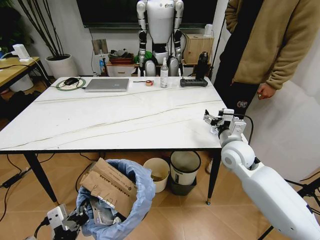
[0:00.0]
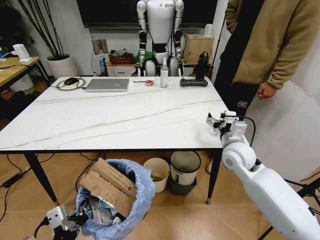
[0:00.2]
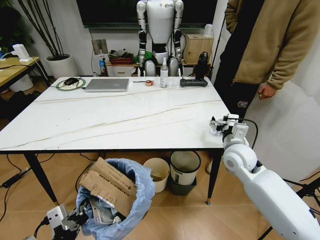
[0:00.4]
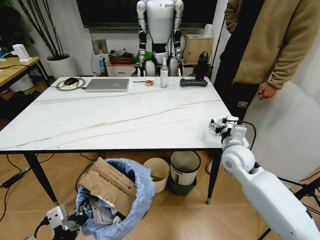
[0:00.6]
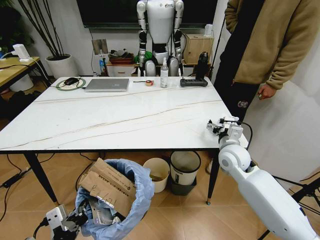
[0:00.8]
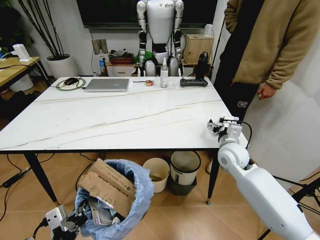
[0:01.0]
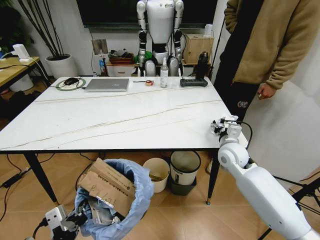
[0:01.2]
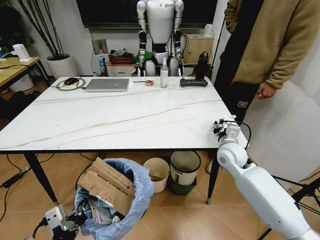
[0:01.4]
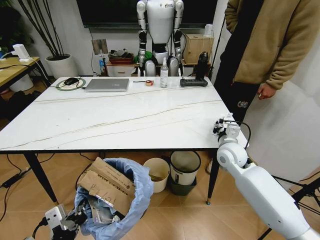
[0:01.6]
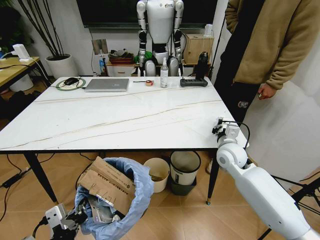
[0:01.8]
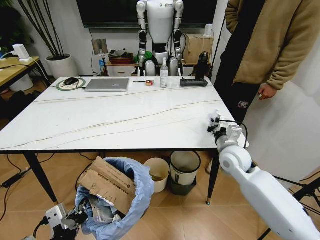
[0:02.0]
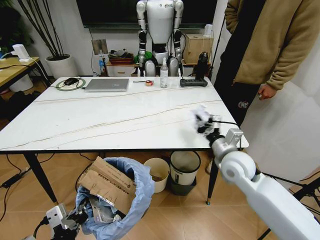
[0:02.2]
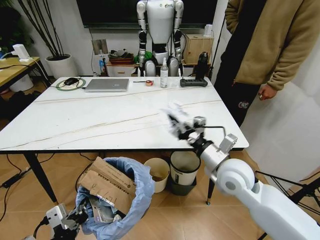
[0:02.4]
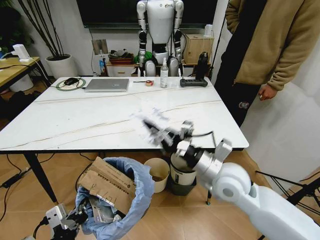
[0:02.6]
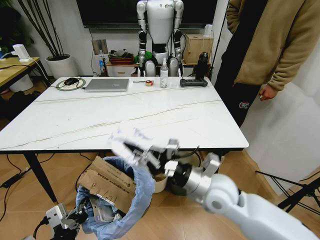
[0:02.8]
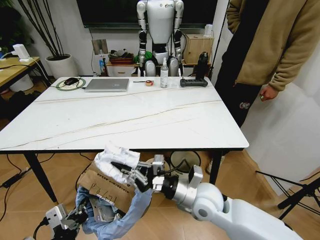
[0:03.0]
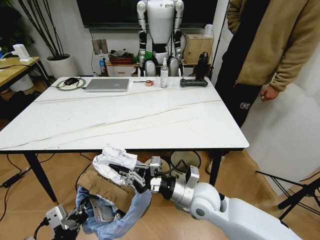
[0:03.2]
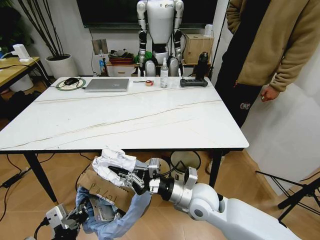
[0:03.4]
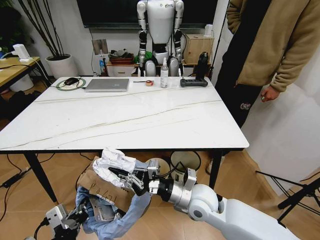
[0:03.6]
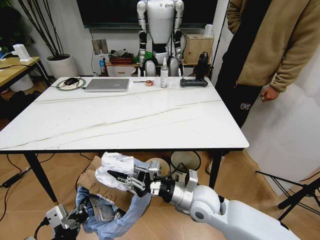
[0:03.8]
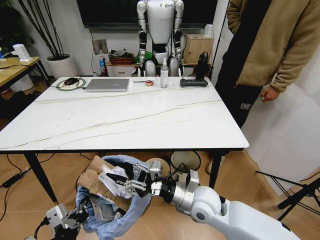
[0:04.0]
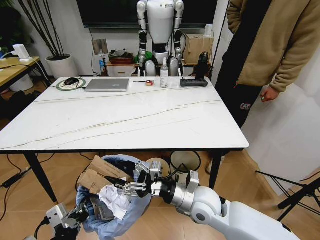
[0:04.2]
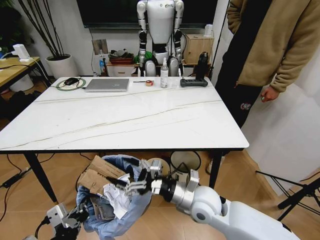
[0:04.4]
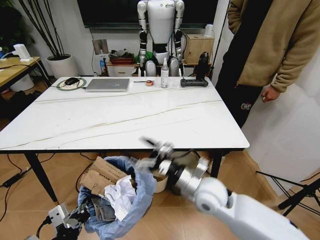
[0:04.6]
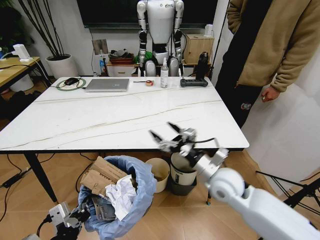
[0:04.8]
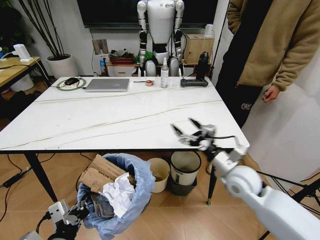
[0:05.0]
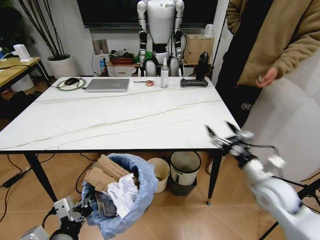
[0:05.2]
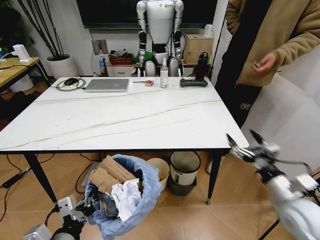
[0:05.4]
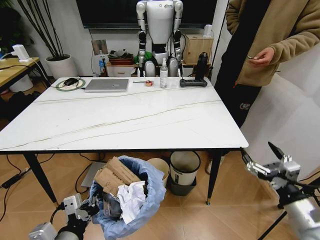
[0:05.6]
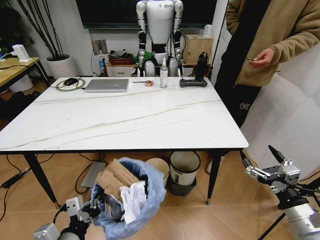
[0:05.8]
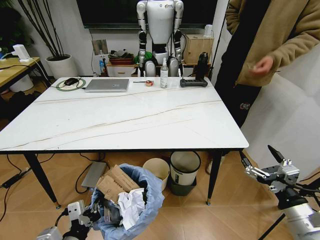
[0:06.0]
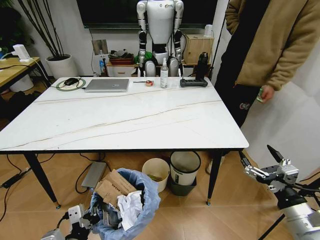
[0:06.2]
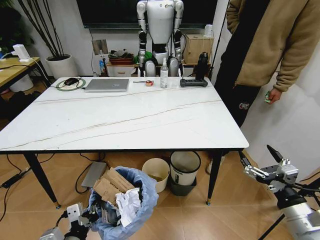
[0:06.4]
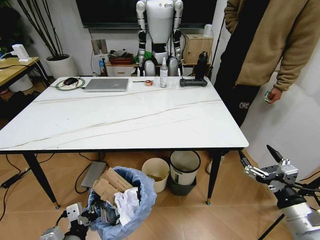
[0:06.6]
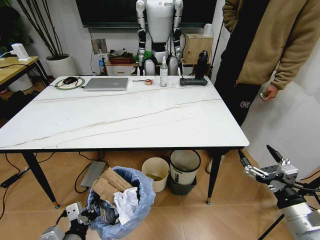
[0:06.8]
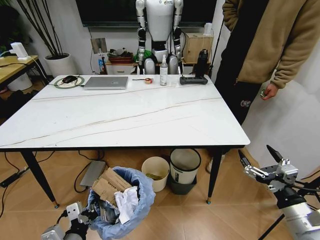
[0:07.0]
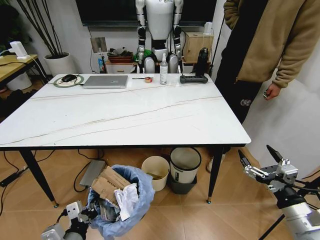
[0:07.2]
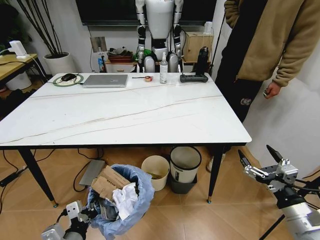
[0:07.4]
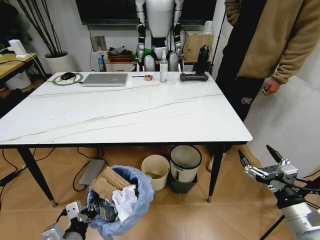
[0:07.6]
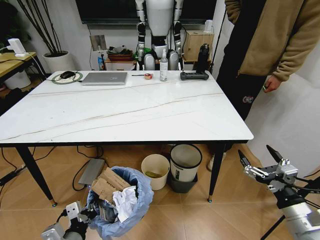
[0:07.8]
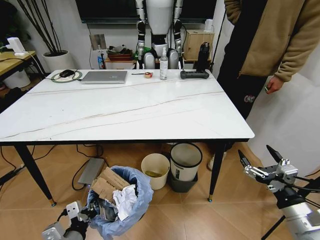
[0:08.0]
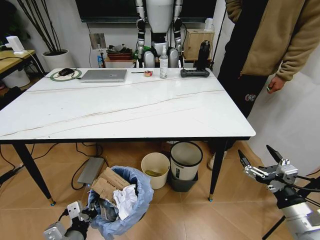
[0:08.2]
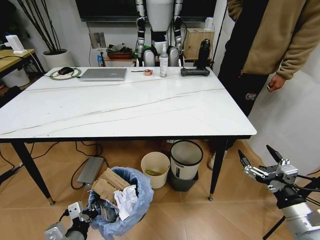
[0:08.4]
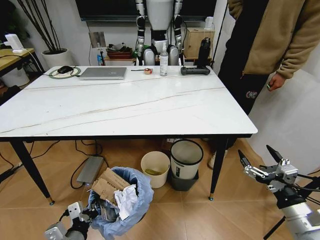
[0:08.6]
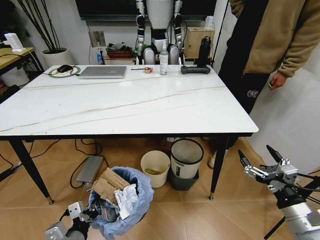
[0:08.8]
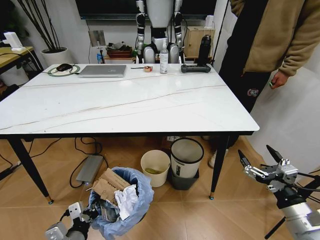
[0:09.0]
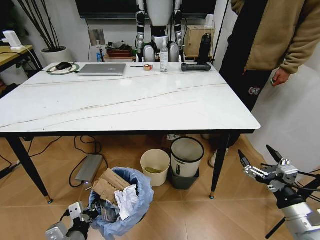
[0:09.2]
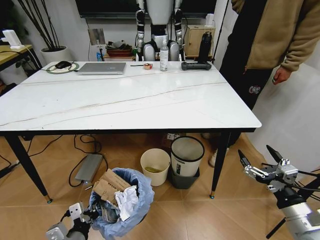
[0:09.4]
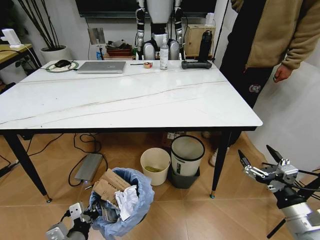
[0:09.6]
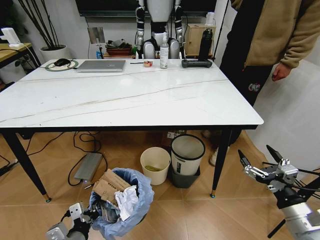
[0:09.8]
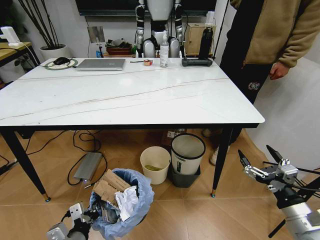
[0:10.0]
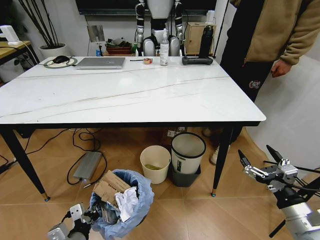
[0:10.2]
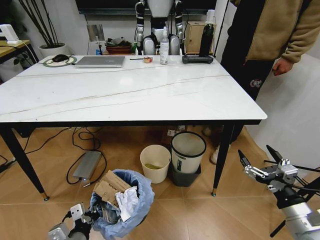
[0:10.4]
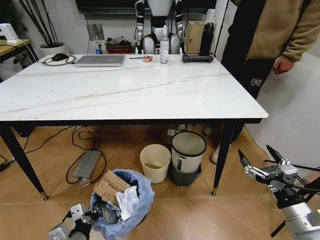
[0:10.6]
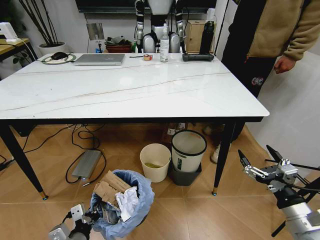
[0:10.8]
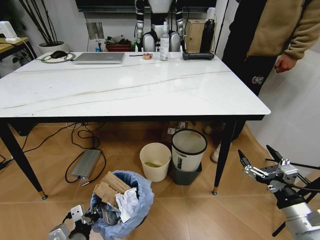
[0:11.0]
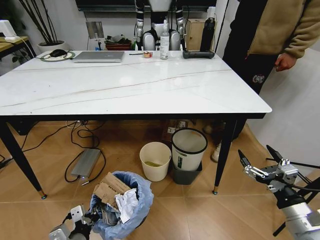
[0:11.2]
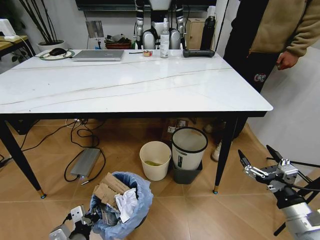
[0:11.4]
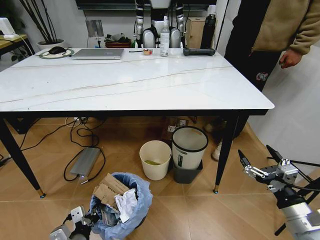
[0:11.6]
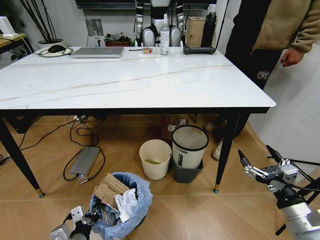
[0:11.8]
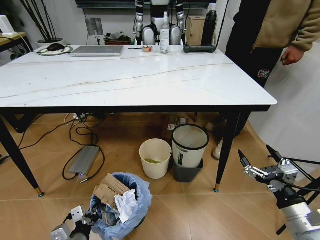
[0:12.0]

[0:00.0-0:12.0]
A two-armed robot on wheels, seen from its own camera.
Task of the whole recording: Pick up the trash bin and place the trash from the table into it.
0:00.0 to 0:01.6: The right gripper closes.
0:01.6 to 0:03.0: The right gripper heads backward and to the left, covering roughly 20 cm.
0:03.0 to 0:04.4: The right gripper opens its fingers.
0:04.4 to 0:06.0: The right gripper shifts some 30 cm to the right and backward; the left gripper goes roughly 5 cm downward.

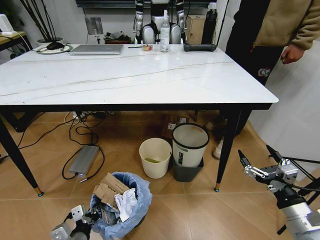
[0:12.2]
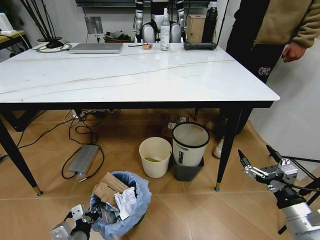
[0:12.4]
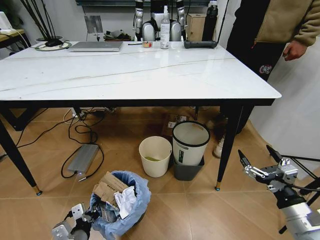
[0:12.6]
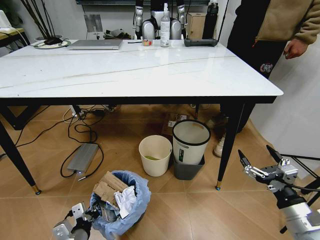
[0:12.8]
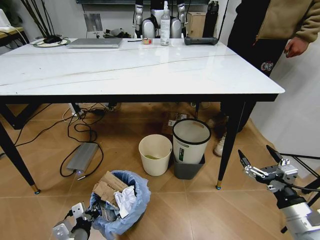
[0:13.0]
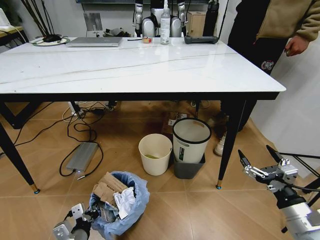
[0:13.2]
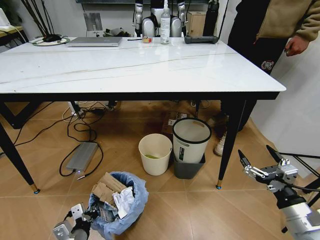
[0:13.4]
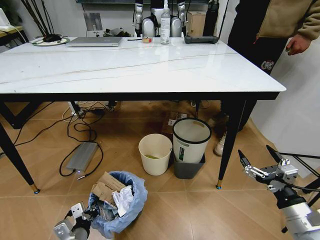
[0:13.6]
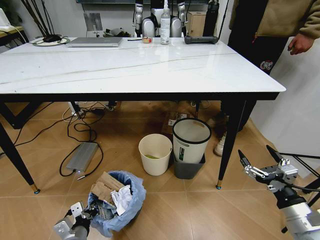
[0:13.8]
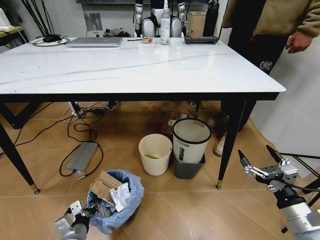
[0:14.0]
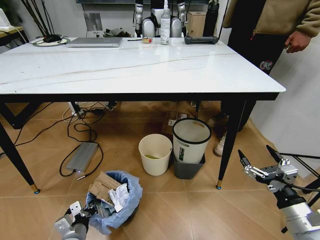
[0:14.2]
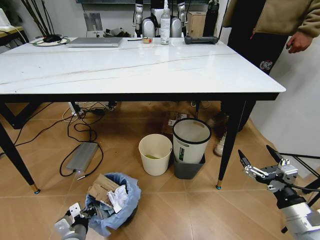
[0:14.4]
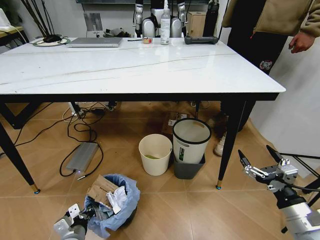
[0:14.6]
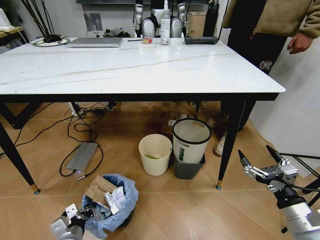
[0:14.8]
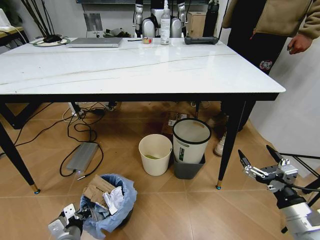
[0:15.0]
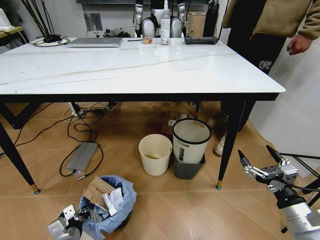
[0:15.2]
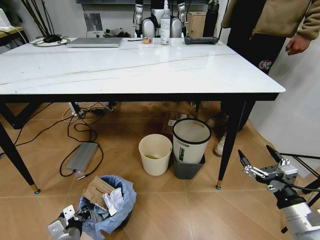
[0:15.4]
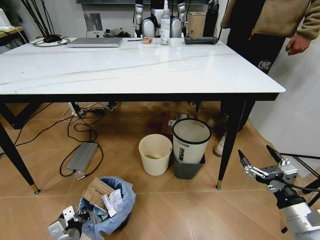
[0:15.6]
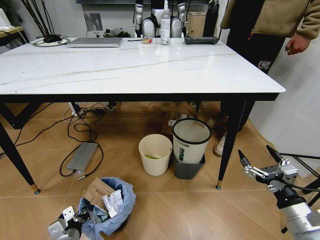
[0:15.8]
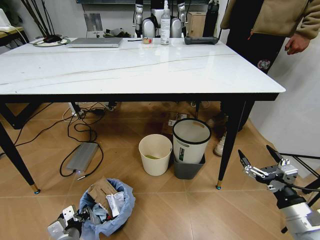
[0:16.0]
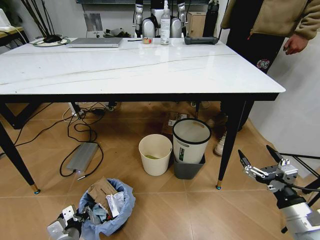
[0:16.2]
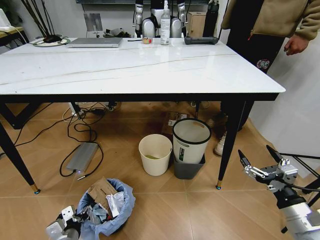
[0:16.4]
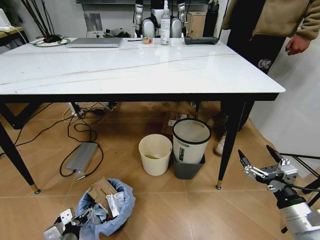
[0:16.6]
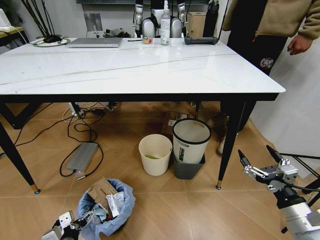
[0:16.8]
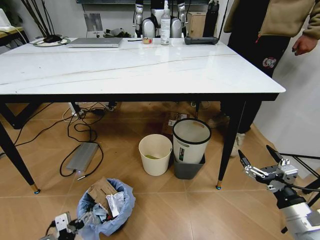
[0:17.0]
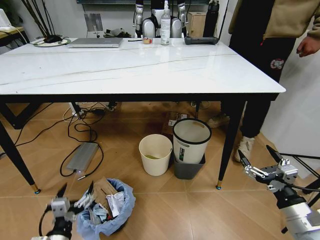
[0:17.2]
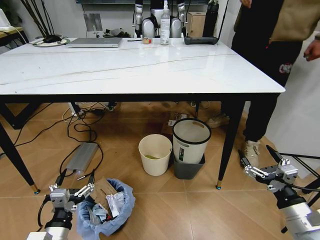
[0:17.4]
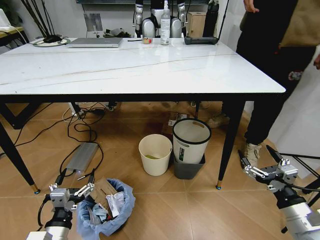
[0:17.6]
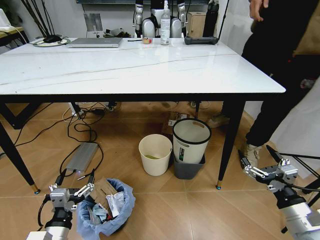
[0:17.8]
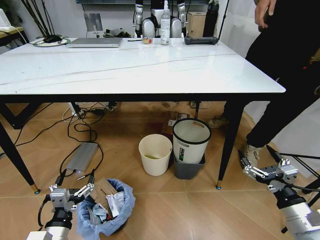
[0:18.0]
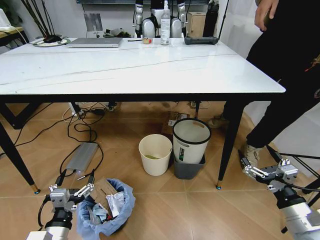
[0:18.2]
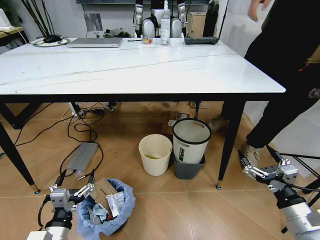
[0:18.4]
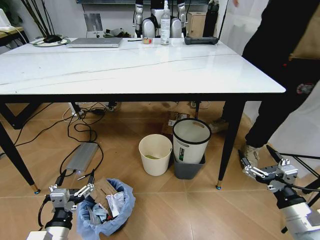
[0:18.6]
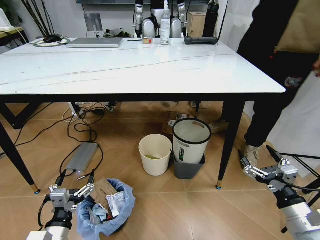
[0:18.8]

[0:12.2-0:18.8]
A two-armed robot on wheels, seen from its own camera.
Task of the whole recording: Pick up the trash bin and place the trash from the table into it.
0:13.8 to 0:15.4: The grippers make only small movements.
0:15.4 to 0:17.2: The left gripper goes approximately 10 cm upward and backward, and opens its fingers.
0:17.2 to 0:18.8: The grippers stay close to where they were, moving slightly.

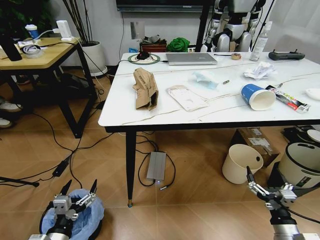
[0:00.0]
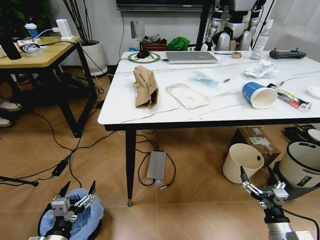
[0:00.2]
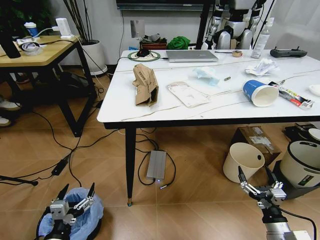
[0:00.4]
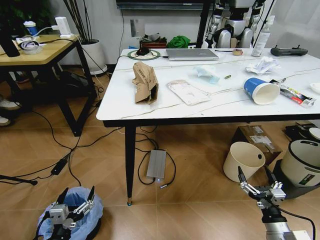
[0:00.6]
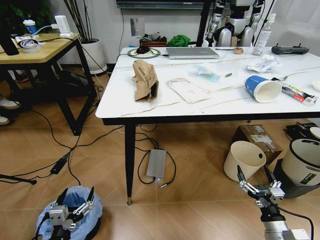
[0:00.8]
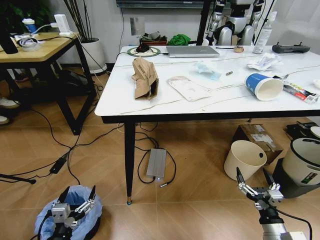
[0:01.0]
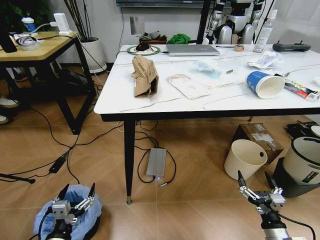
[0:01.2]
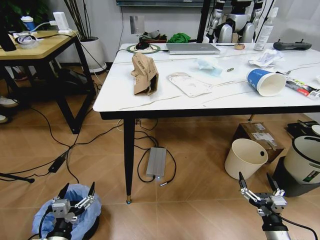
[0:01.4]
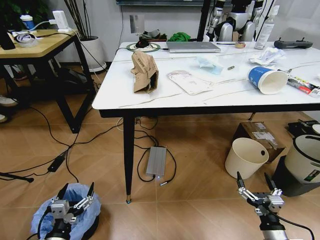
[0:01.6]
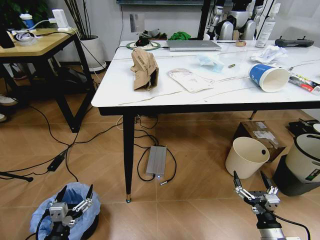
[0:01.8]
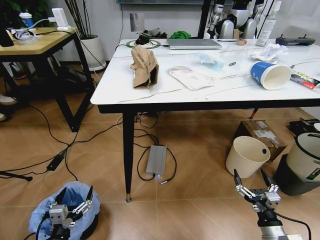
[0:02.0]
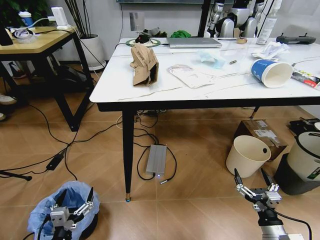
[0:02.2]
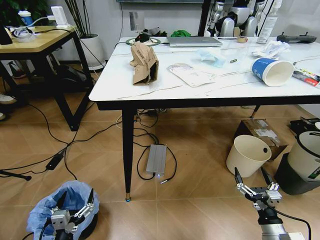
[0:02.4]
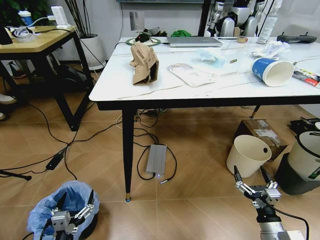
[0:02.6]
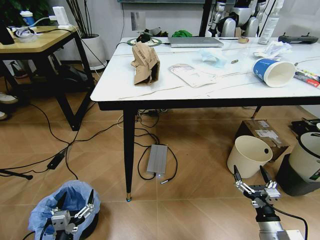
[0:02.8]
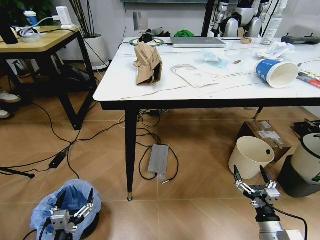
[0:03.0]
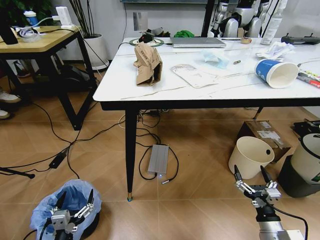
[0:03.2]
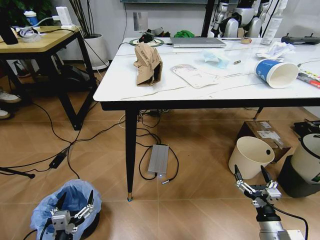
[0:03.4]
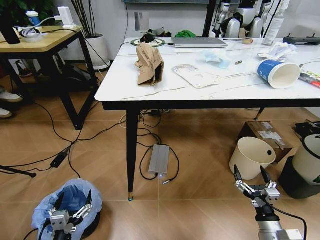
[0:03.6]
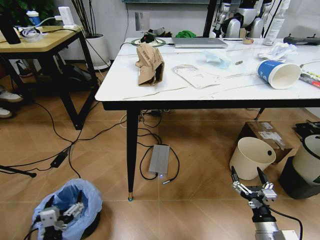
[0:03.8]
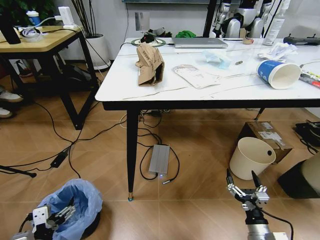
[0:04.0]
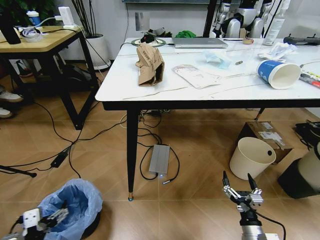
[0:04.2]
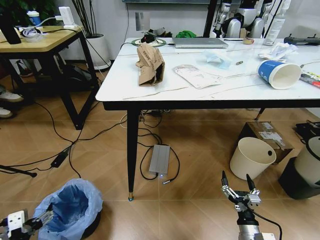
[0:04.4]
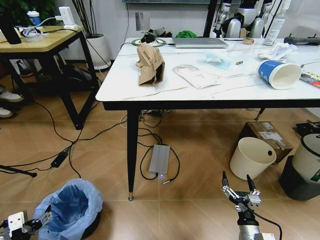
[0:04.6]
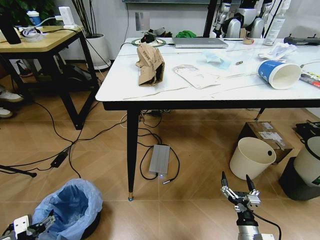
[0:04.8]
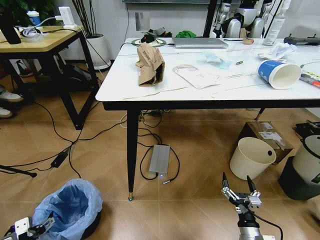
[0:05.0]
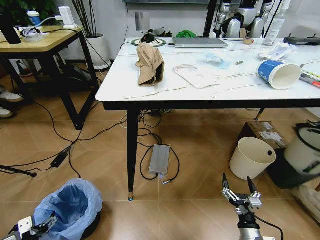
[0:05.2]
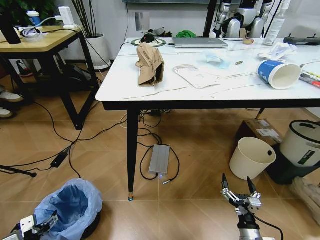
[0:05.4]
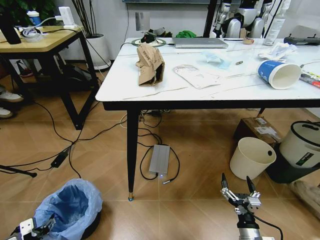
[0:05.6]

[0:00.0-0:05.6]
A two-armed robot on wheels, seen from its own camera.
Task of the whole recording: Pick up the trash bin and place the trash from the table into it.
0:02.8 to 0:04.2: The right gripper moves about 5 cm. Meanwhile the left gripper is displaced upward and to the left by roughly 10 cm.
0:04.2 to 0:05.6: The left gripper travels downward and to the left by some 15 cm.
